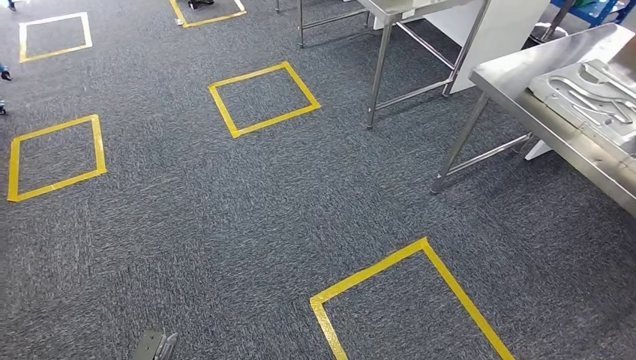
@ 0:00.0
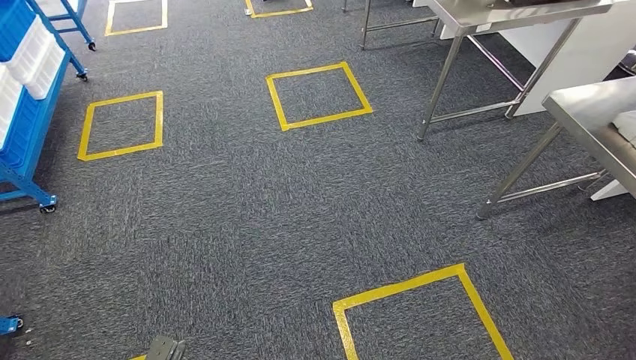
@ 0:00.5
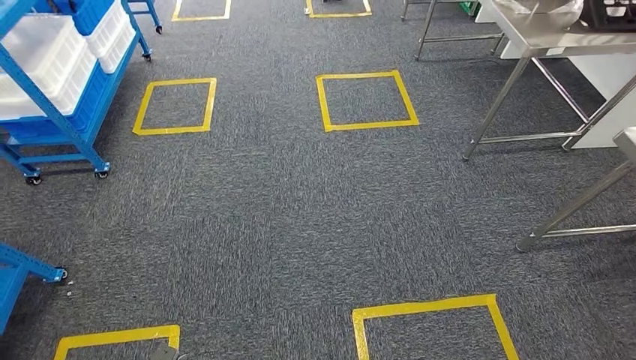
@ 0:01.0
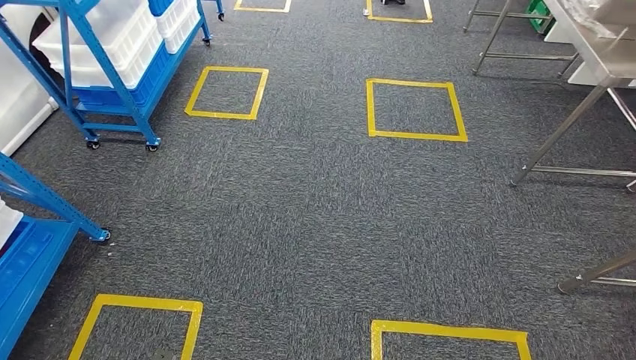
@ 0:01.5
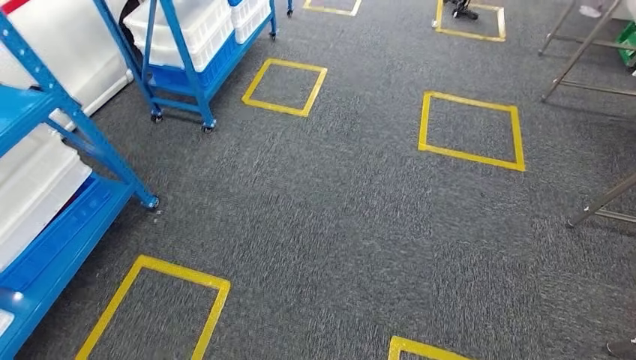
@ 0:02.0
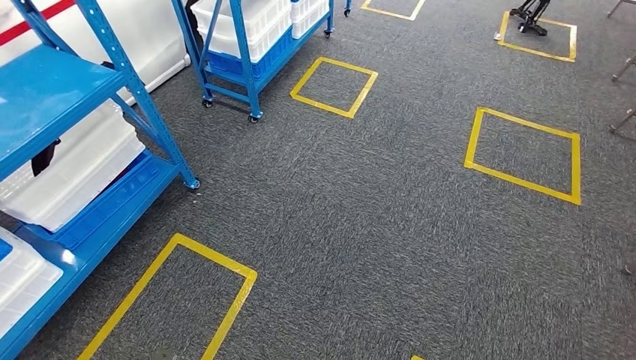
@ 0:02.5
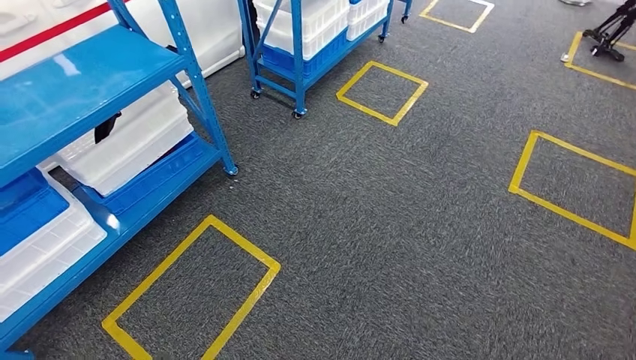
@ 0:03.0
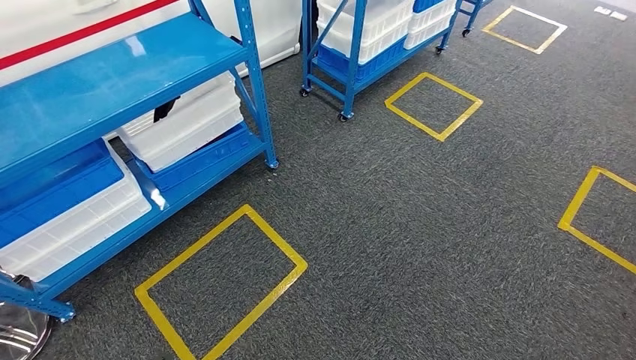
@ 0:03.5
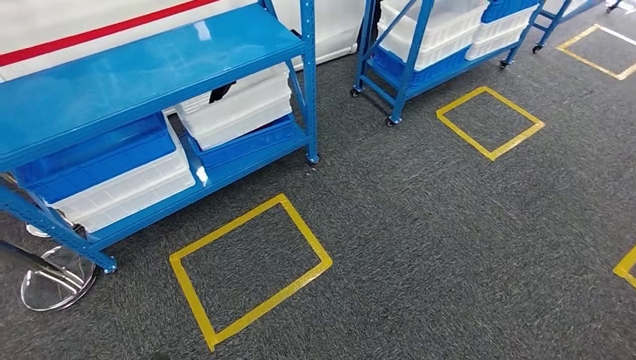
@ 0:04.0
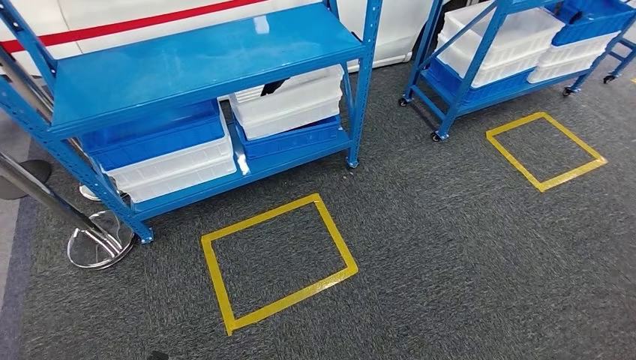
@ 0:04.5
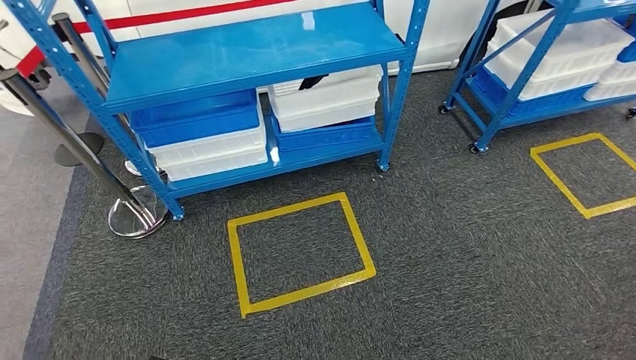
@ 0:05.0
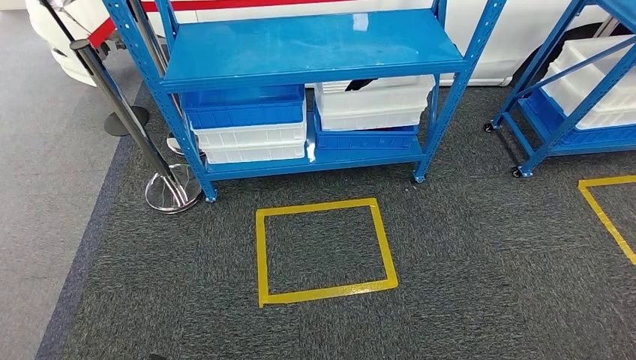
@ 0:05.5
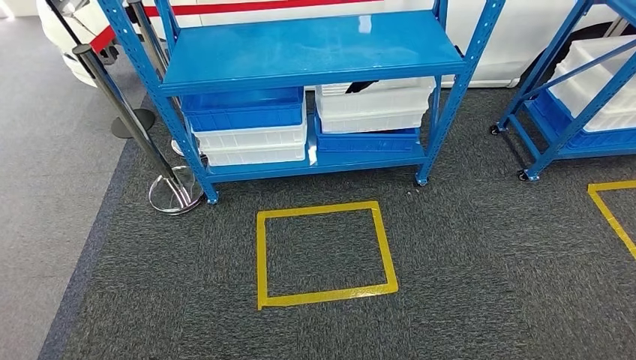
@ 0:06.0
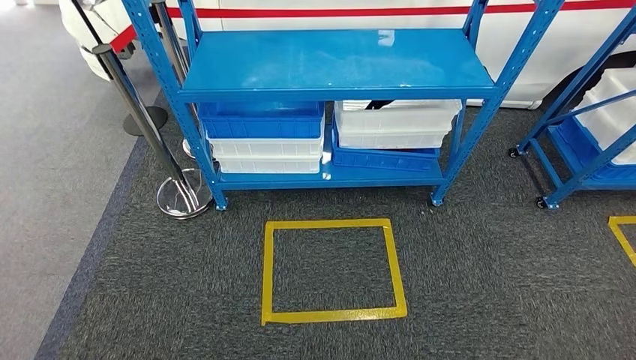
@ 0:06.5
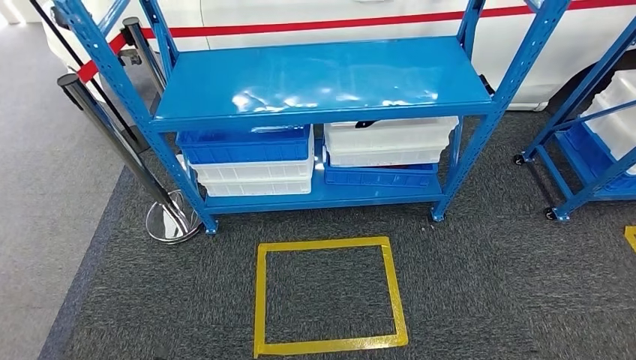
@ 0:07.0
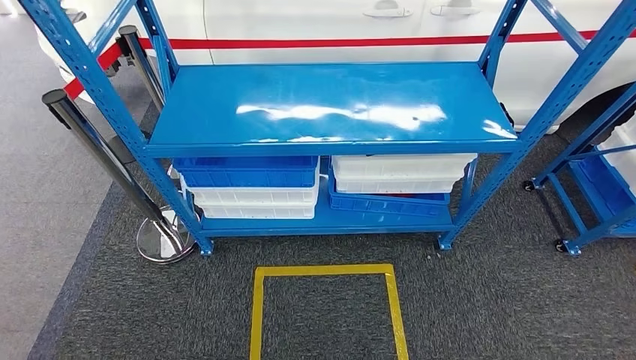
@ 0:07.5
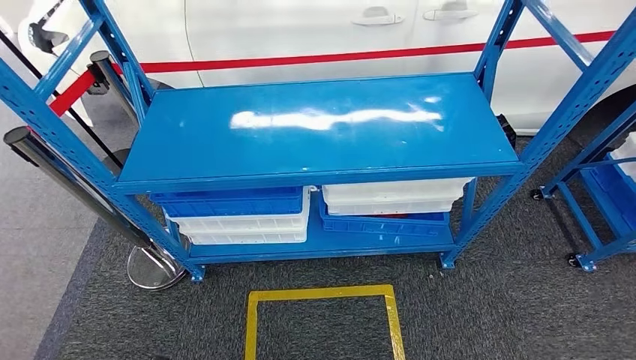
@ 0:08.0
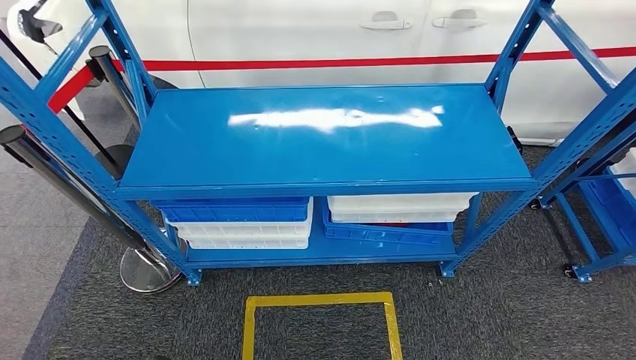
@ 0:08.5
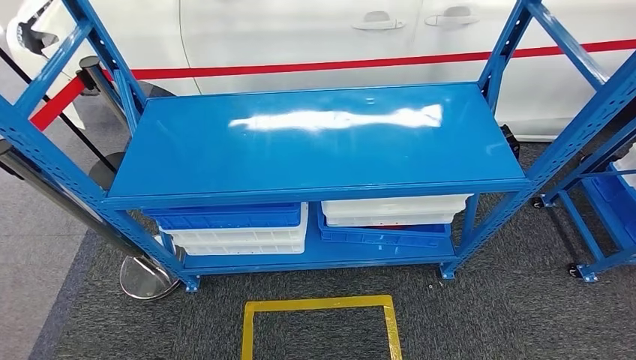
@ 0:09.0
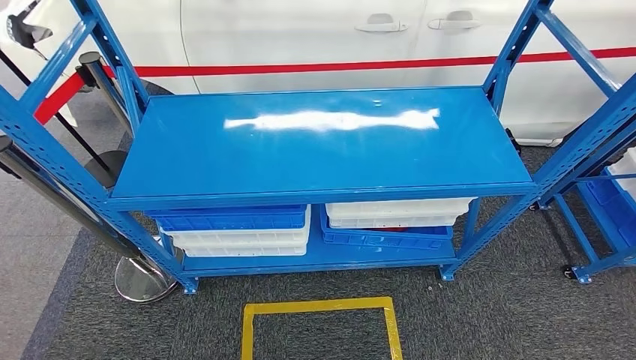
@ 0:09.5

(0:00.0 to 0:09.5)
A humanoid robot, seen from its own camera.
Step, 0:00.0 - 0:09.5: Move to the initial position of the shelf.
